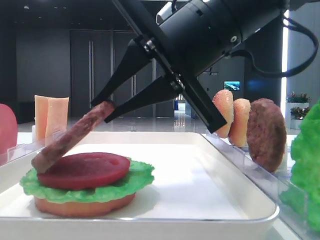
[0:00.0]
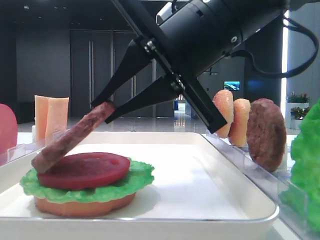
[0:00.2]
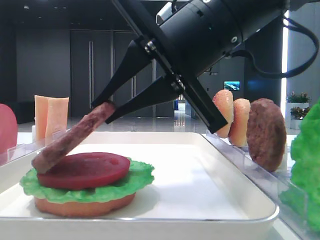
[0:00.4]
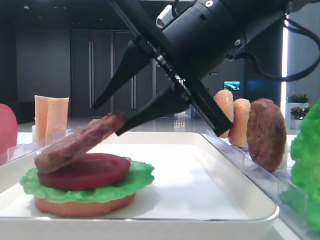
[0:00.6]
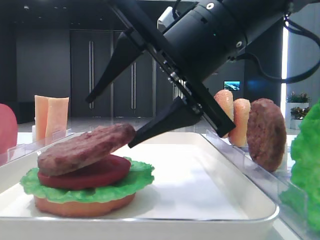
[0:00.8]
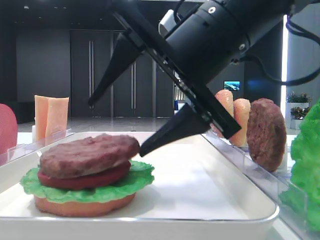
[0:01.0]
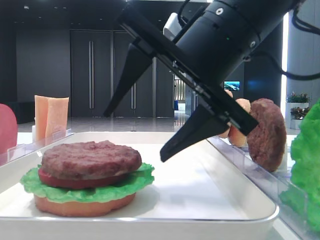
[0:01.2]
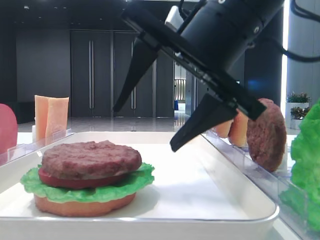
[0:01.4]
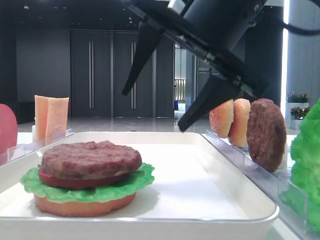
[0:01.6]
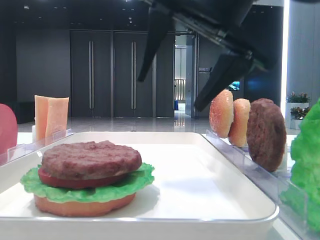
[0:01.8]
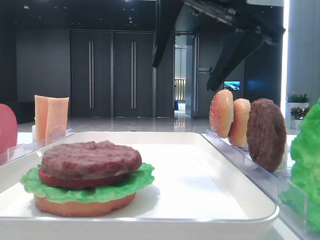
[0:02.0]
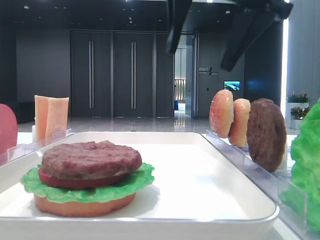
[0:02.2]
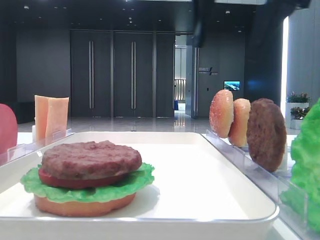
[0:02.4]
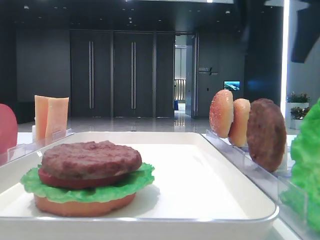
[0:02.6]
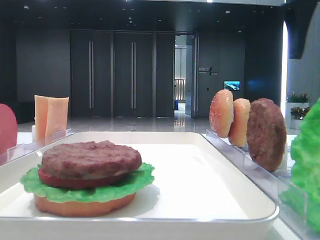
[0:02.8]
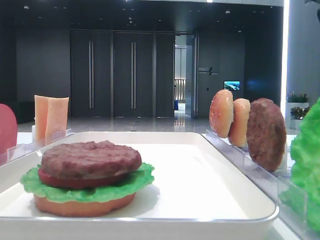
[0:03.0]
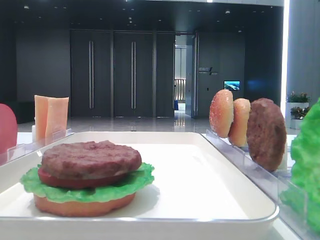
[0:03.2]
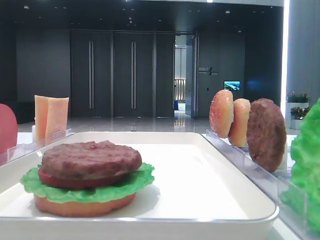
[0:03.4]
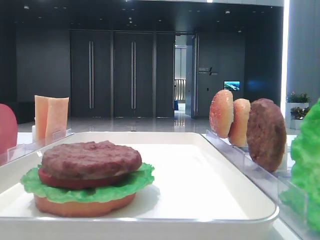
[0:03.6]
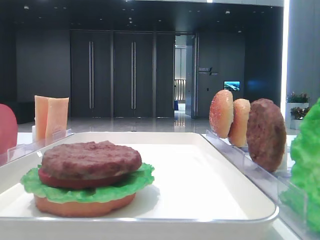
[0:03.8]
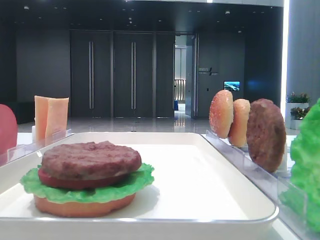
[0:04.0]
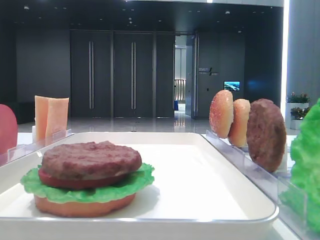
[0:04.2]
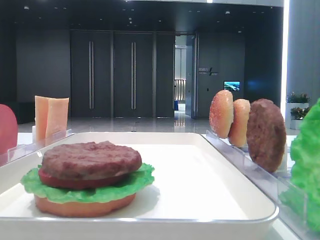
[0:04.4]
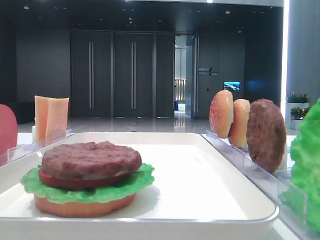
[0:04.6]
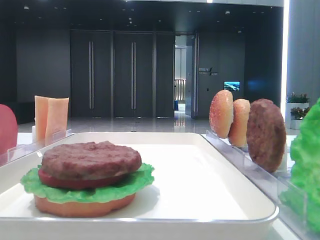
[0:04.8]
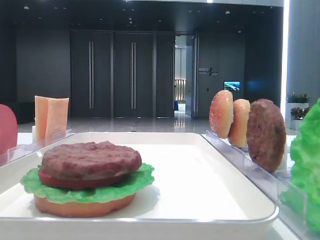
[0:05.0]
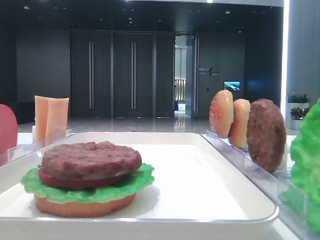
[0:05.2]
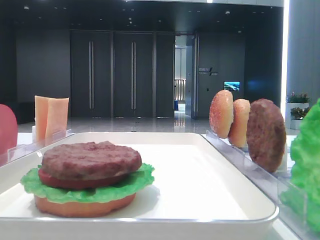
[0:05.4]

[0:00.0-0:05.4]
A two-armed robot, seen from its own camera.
0:00.0 to 0:01.4: The right gripper opens.
0:01.4 to 0:02.8: The right gripper goes about 20 cm to the right, upward and forward.
0:02.8 to 0:04.0: The right gripper shifts some 20 cm backward.

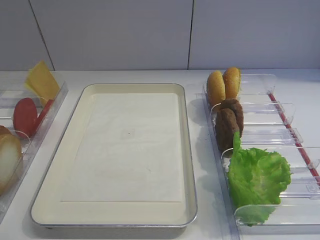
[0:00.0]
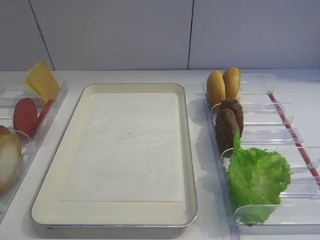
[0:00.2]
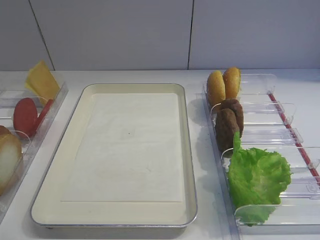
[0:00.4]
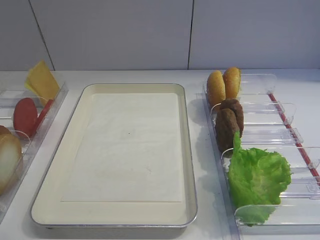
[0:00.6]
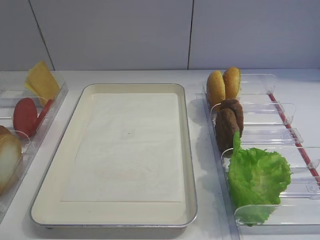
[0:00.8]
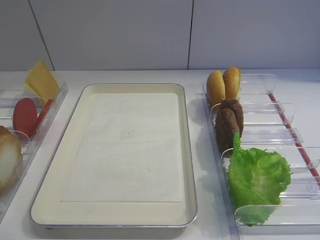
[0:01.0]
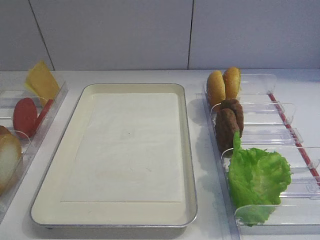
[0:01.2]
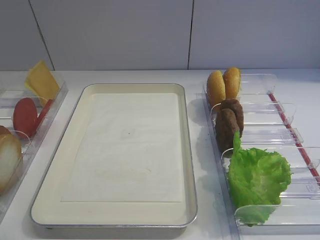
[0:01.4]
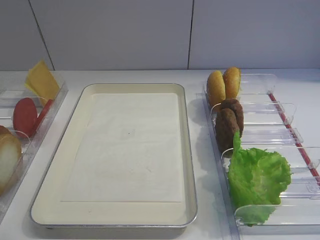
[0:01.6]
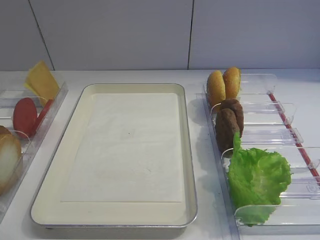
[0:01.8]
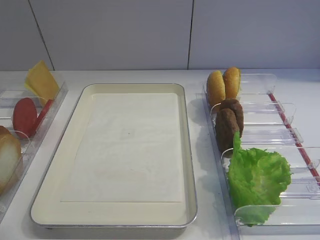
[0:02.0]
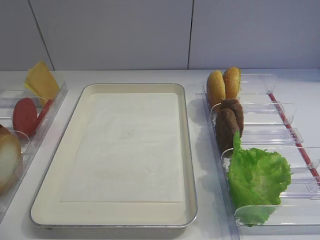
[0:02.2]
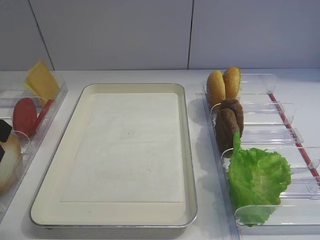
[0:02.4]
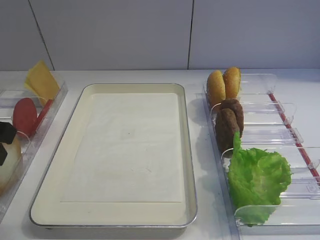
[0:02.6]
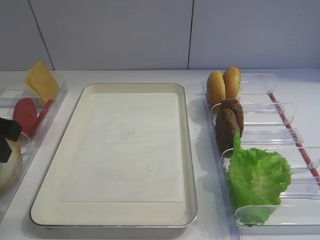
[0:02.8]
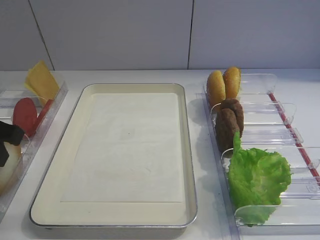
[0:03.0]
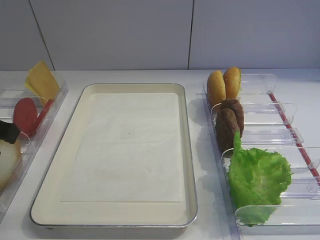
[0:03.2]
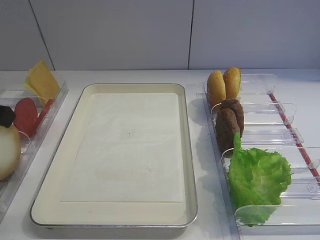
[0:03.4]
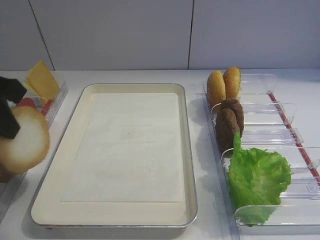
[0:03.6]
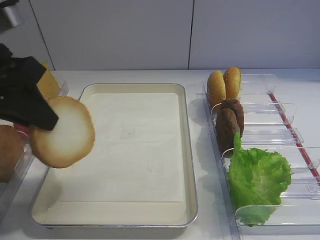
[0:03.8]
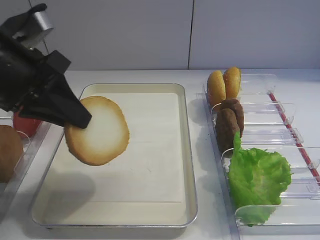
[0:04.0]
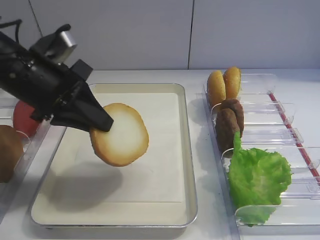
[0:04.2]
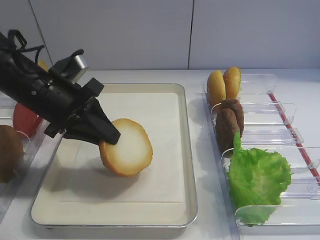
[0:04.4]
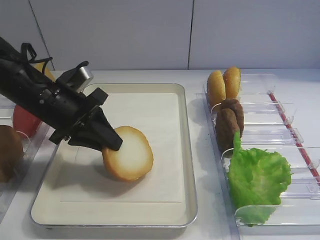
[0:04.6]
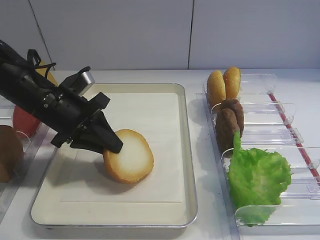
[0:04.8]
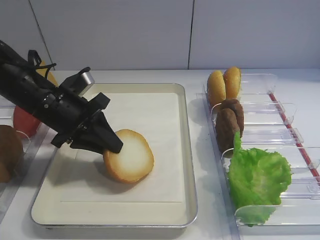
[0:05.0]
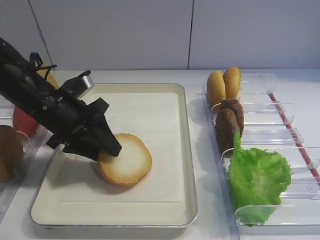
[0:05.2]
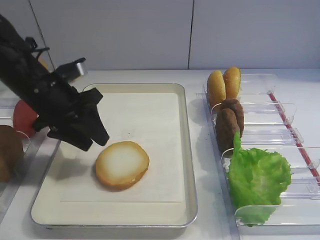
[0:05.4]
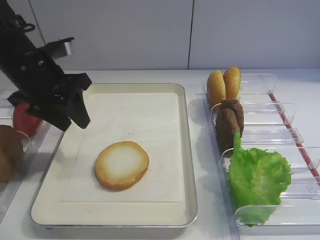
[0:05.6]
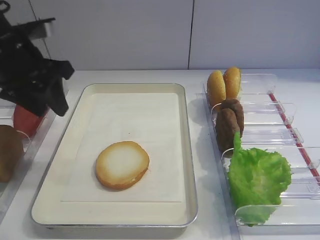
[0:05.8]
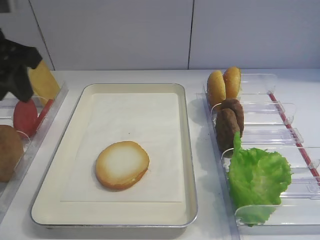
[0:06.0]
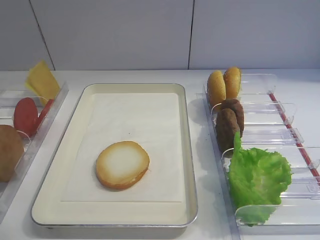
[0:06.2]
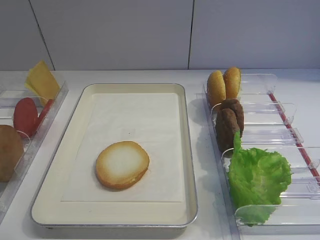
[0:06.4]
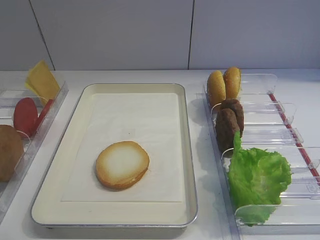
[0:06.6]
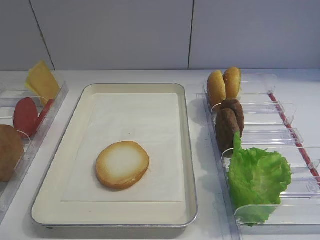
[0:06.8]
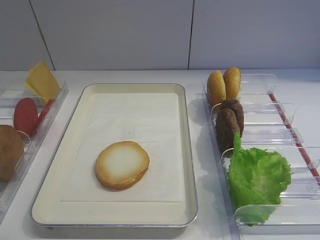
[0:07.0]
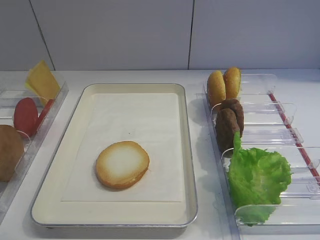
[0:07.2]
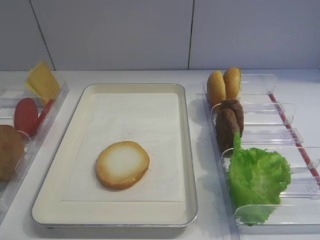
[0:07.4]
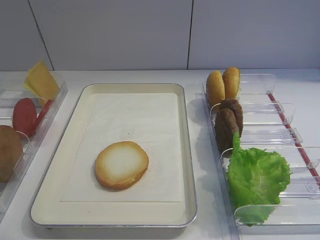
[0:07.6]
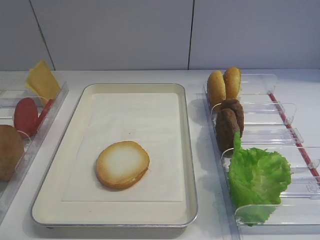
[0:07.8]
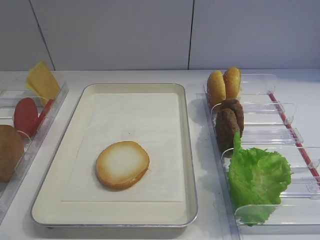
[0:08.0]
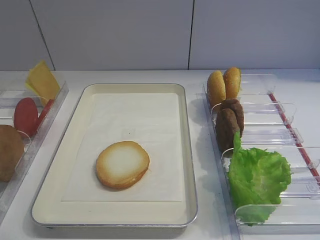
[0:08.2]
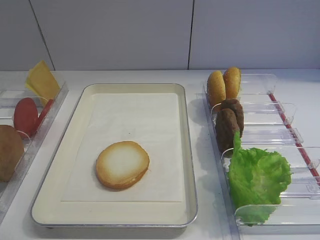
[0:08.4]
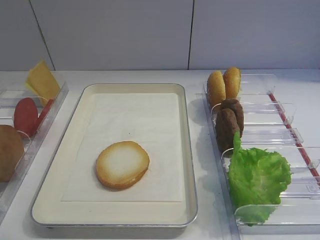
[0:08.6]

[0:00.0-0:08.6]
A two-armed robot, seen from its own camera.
Step, 0:00.0 to 0:03.4: Pick up the bread slice with the left gripper.
Step, 0:03.6 to 0:05.4: Place the bread slice on the tray with the left gripper.
0:01.4 to 0:02.8: The left gripper goes about 20 cm forward.
0:02.8 to 0:04.4: The left gripper shifts about 10 cm to the right and forward, and closes its fingers.
0:04.4 to 0:05.8: The left gripper shifts by about 5 cm, and opens up.
0:05.8 to 0:07.2: The left gripper moves backward, roughly 30 cm.

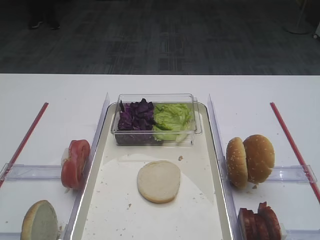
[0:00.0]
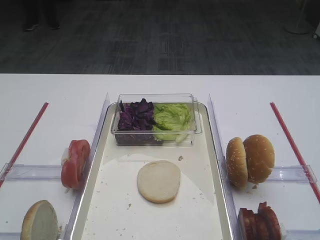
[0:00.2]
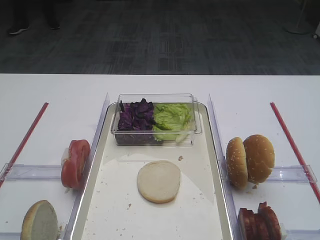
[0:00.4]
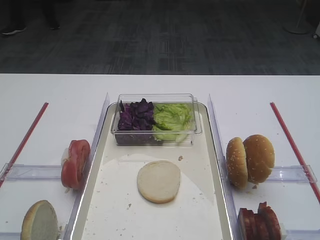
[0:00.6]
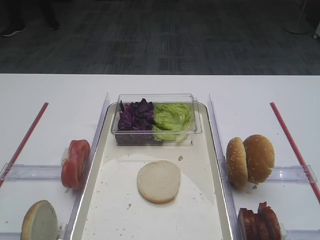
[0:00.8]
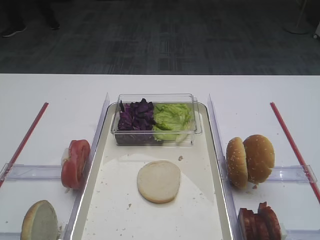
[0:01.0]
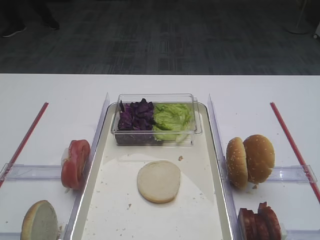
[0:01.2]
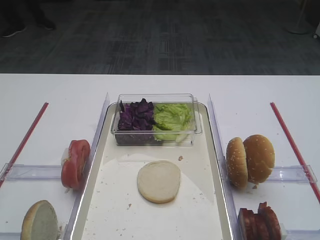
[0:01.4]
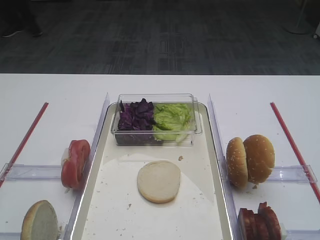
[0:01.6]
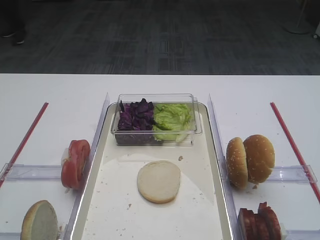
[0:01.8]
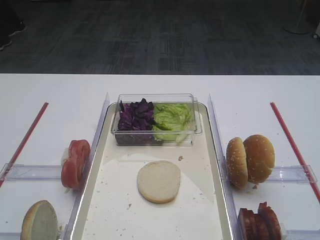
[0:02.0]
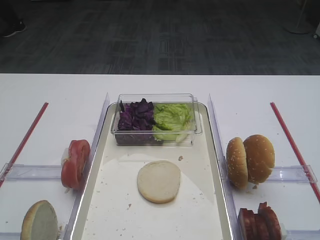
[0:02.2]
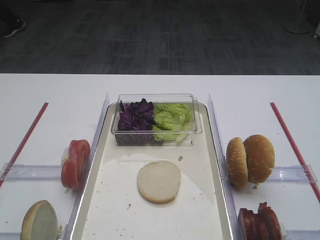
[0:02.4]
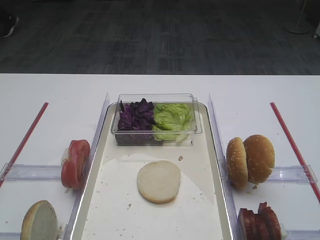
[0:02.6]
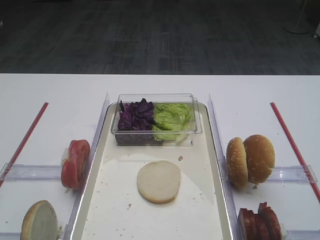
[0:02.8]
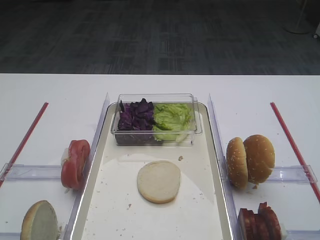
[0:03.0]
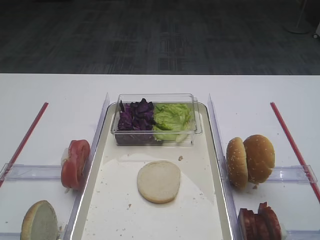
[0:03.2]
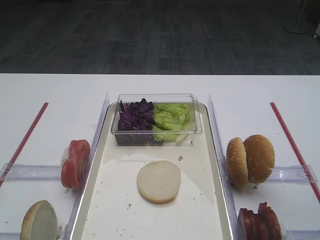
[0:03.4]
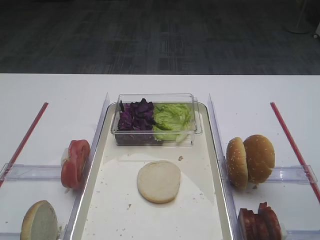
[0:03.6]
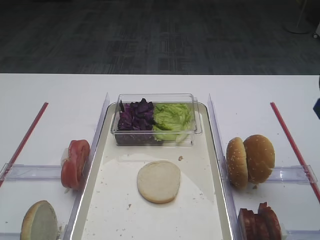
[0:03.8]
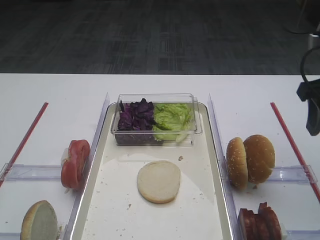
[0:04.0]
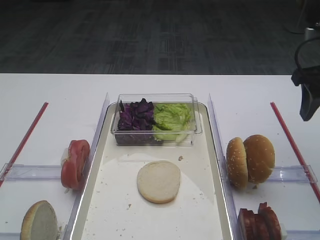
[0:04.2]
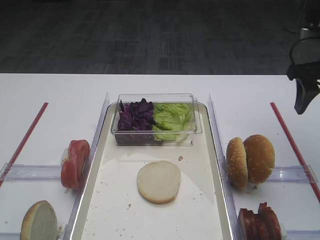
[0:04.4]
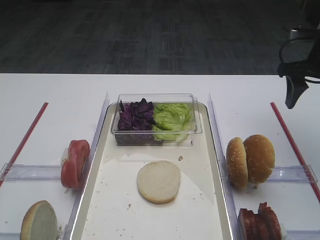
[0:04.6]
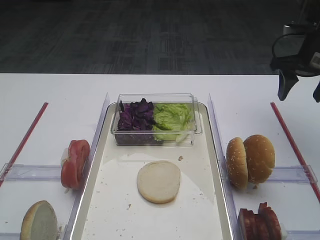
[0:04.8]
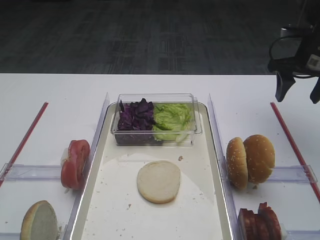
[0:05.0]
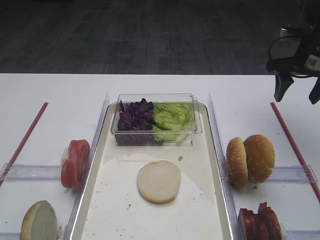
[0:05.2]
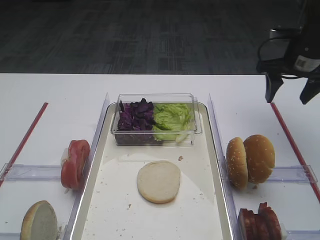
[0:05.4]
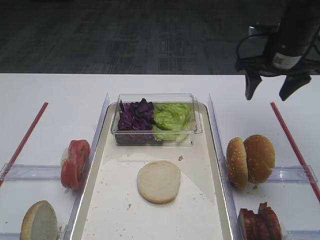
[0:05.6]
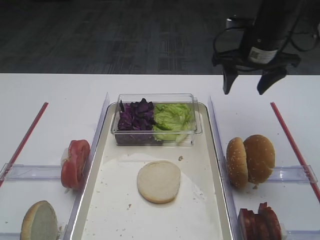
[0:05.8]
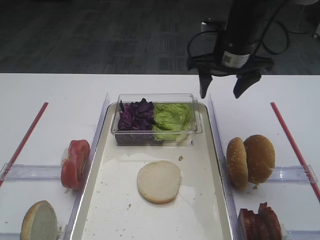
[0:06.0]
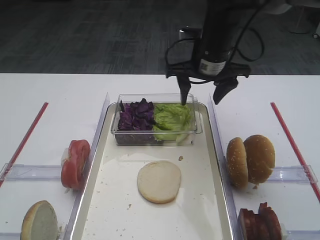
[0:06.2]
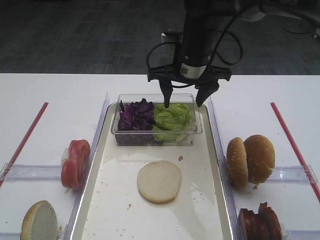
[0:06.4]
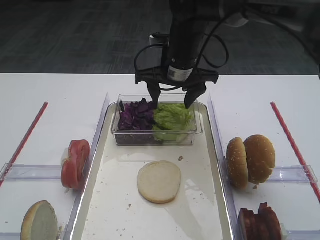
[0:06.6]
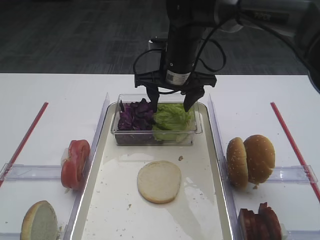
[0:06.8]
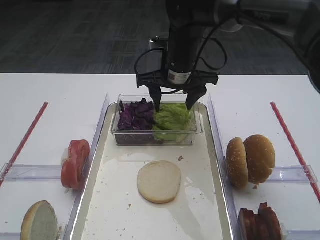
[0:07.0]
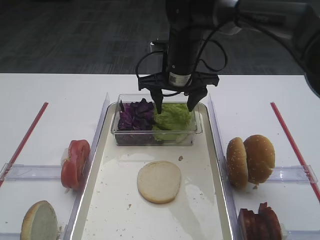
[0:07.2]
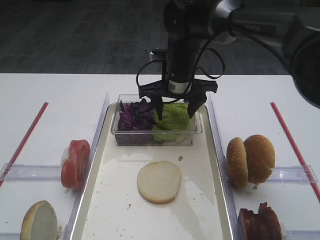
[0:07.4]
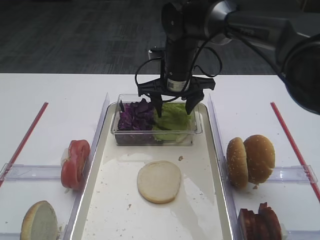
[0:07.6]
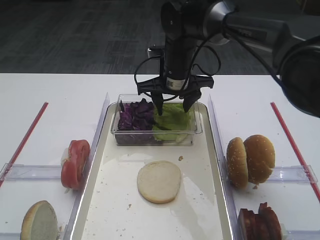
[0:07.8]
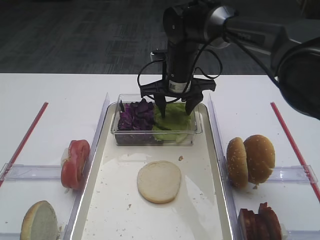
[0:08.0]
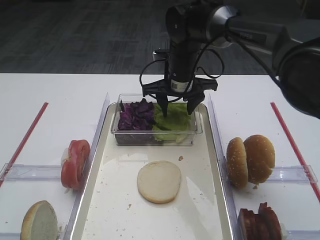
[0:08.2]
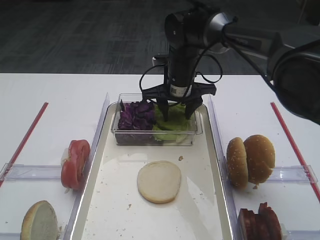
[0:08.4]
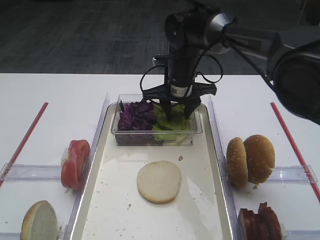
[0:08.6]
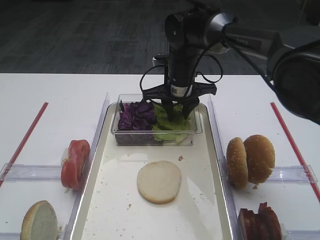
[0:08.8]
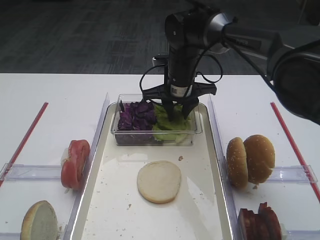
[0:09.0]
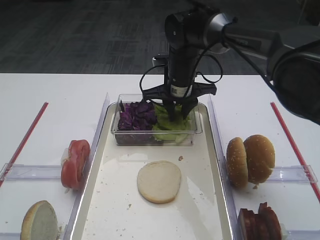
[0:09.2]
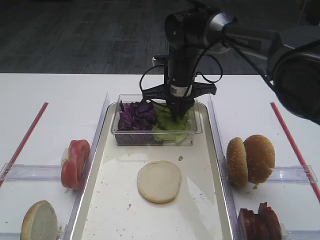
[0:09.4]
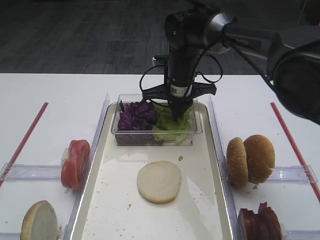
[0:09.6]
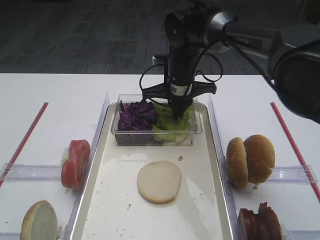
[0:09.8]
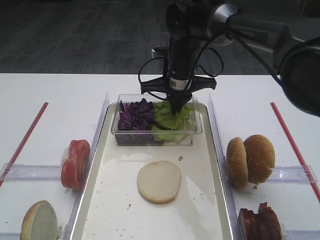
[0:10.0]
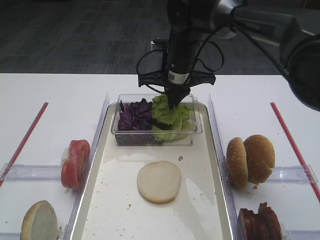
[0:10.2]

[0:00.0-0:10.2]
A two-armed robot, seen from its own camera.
0:03.0 to 0:04.4: The right gripper heads forward, covering about 25 cm.
0:04.4 to 0:05.8: The right gripper heads to the left and forward, covering roughly 15 cm.
0:05.8 to 0:07.2: The right gripper travels to the left by roughly 15 cm.
0:07.2 to 0:08.8: The right gripper moves about 5 cm, and closes its fingers.
0:08.8 to 0:10.2: The right gripper closes up.
